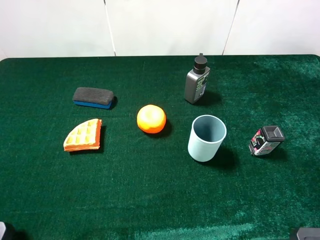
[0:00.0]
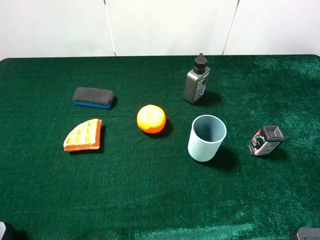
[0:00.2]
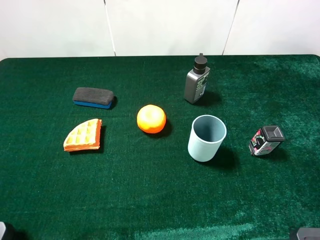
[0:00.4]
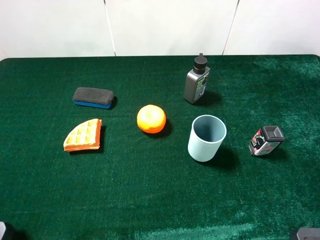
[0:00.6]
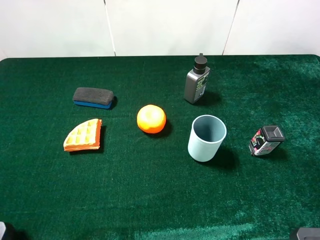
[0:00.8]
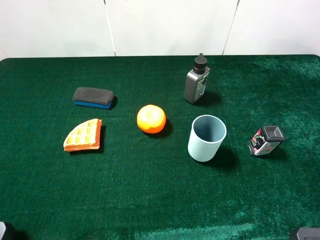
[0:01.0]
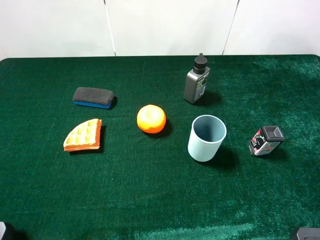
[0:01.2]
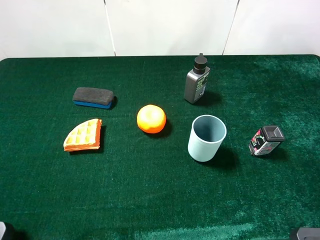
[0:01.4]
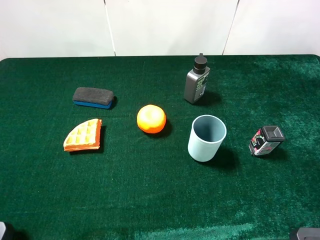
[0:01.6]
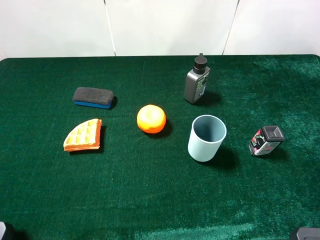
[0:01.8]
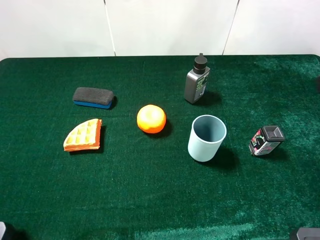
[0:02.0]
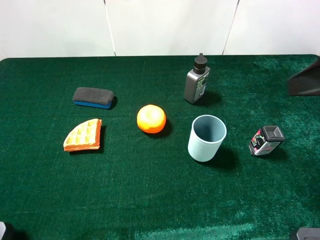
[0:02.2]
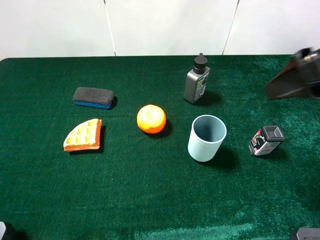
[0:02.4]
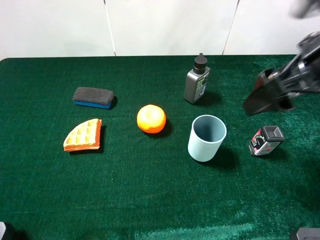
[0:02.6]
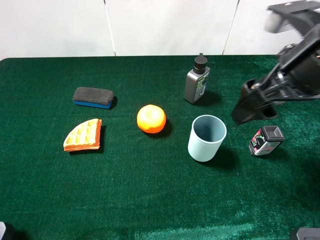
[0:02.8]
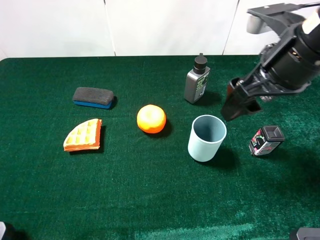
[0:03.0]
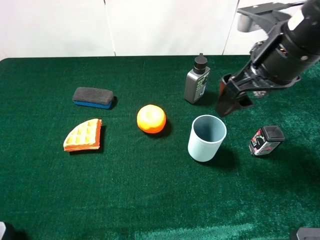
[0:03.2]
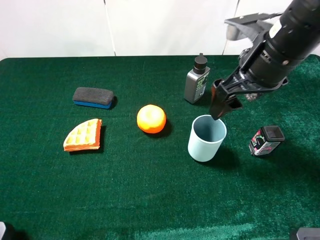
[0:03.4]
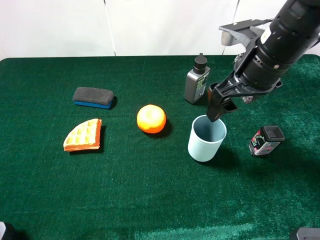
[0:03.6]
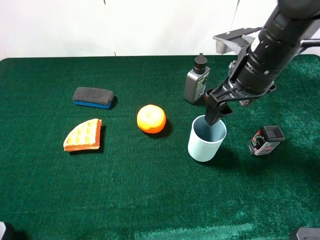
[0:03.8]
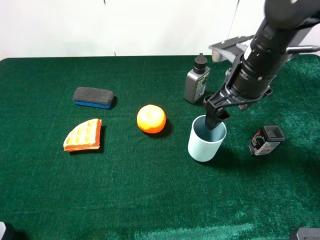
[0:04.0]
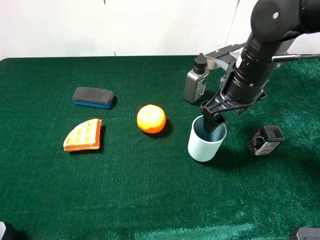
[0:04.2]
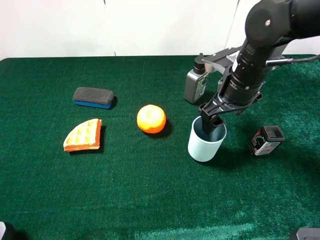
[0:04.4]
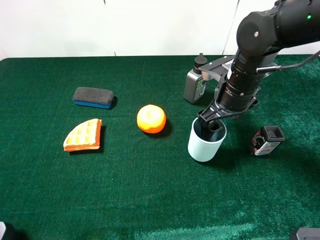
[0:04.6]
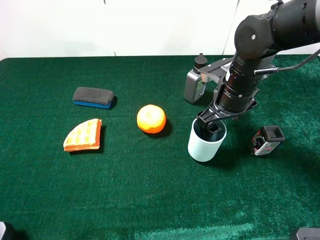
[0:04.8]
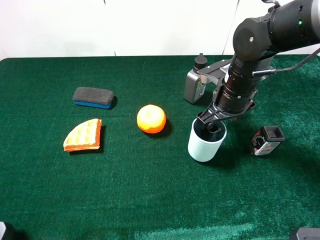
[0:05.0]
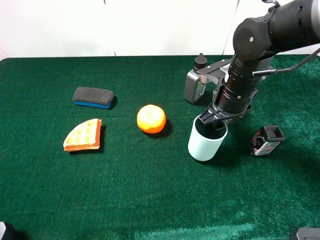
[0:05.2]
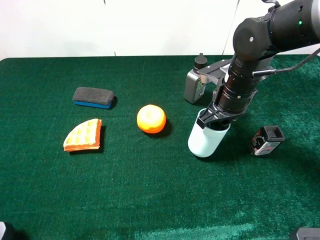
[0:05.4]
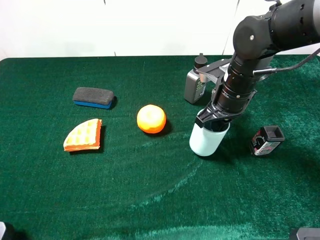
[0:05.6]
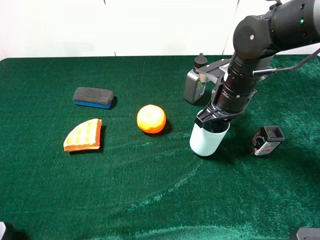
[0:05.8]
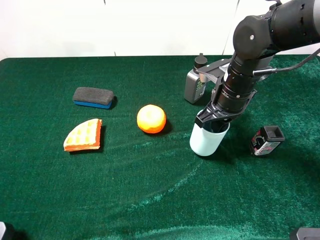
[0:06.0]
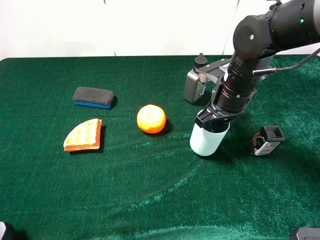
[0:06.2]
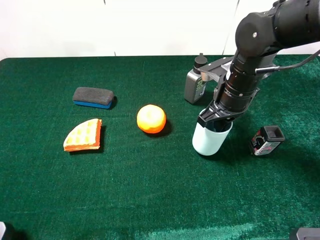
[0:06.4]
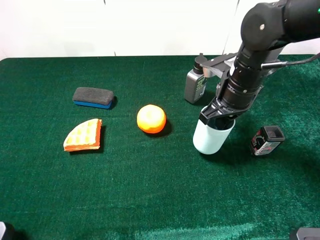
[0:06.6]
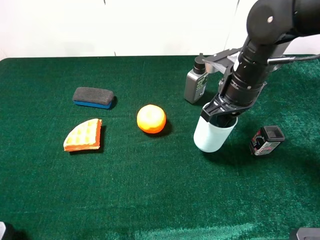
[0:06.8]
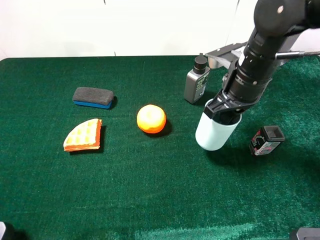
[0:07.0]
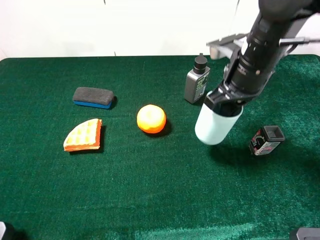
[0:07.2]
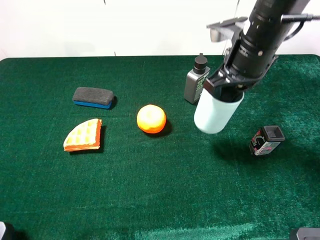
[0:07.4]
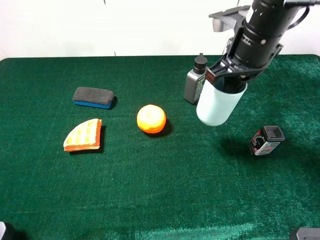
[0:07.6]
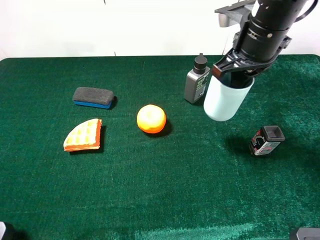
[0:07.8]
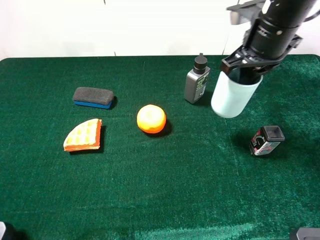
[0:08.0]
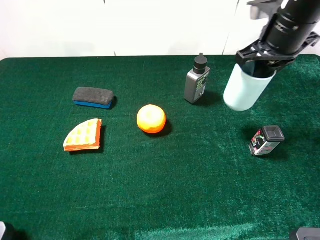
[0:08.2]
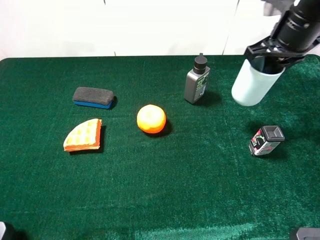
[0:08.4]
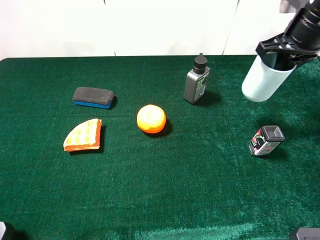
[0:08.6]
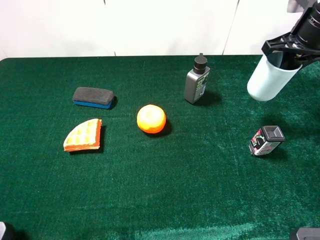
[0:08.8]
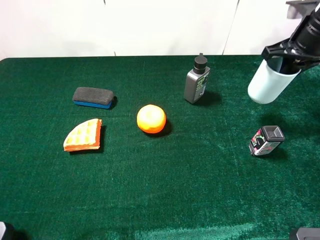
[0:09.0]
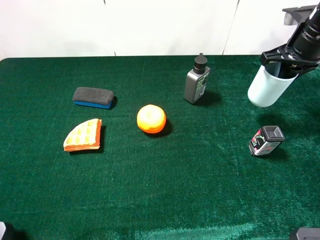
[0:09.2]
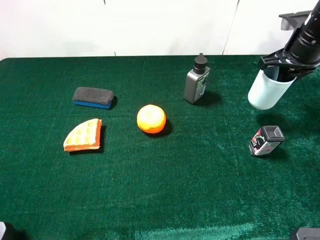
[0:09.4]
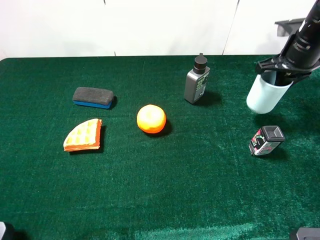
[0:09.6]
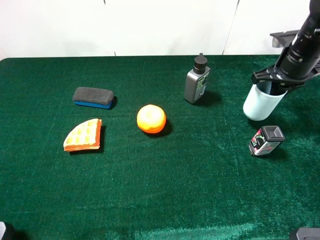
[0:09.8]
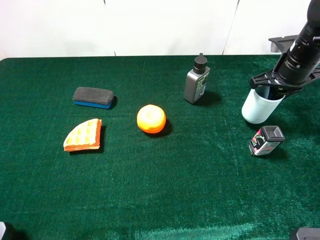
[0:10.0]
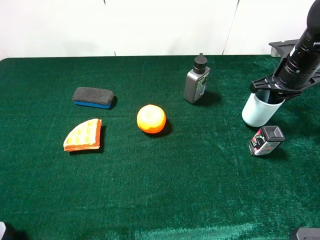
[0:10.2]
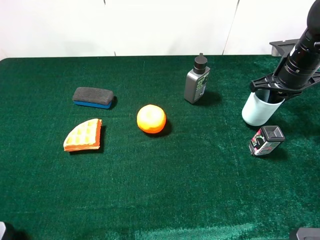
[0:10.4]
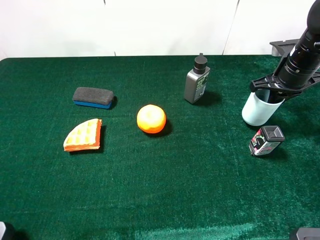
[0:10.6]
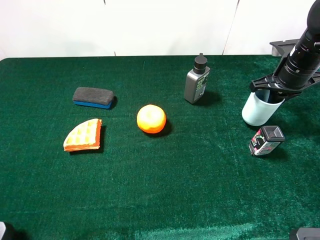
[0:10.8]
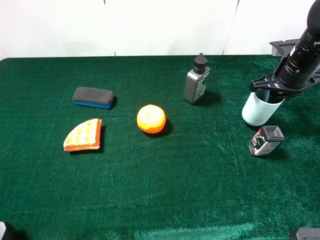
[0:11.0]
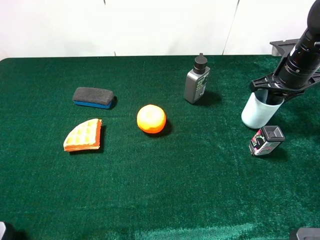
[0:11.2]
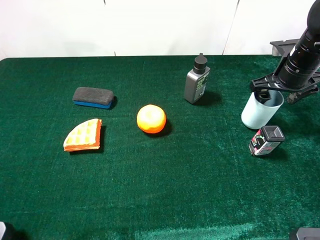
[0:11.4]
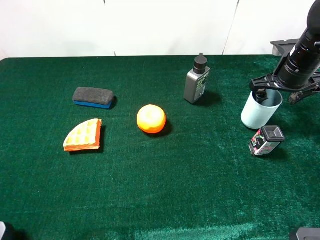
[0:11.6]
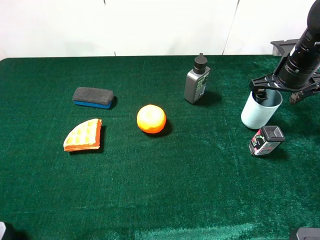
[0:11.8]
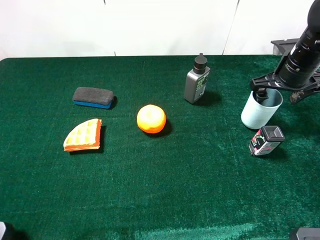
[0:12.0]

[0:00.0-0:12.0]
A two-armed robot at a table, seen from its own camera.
Task of the whole recording: the gripper move the object.
Step, 0:00.0 to 0:05.6: Grasp the cyan cup with the right gripper.
0:01.6 to 0:03.0: The right gripper travels forward, to the left and downward by some 20 cm.
0:03.0 to 0:04.4: The right gripper travels downward and forward by about 10 cm.
0:04.4 to 0:06.0: The right gripper closes its fingers.
0:06.0 to 0:07.6: The right gripper heads upward, covering roughly 10 cm.
0:07.6 to 0:09.0: The right gripper is displaced to the right and forward by approximately 15 cm.
0:09.0 to 0:10.4: The right gripper shifts some 5 cm downward.
0:10.4 to 0:12.0: The right gripper opens.

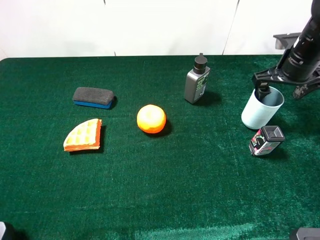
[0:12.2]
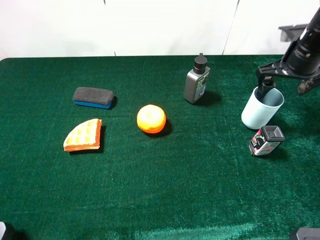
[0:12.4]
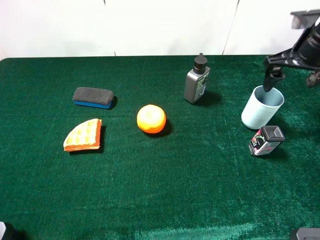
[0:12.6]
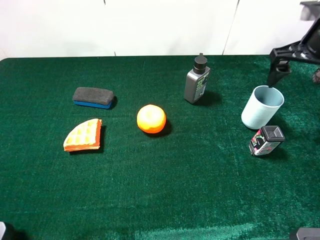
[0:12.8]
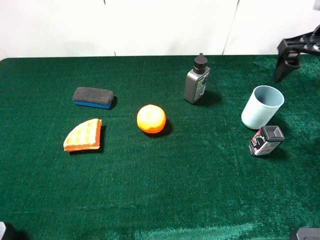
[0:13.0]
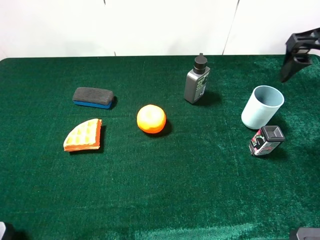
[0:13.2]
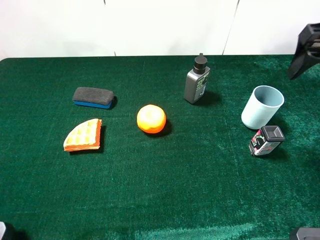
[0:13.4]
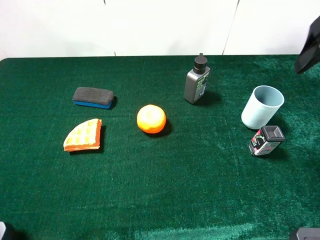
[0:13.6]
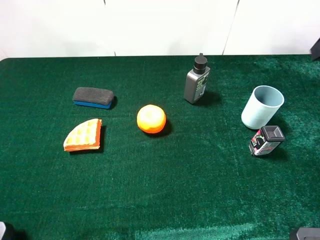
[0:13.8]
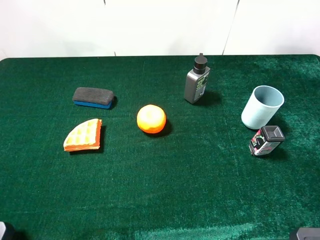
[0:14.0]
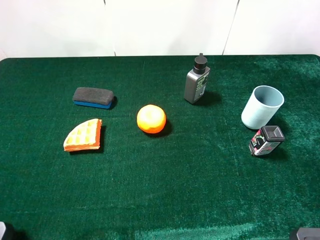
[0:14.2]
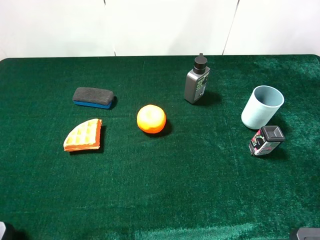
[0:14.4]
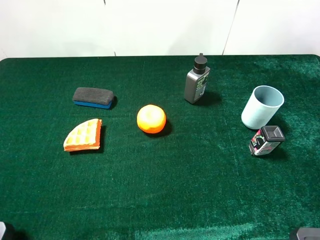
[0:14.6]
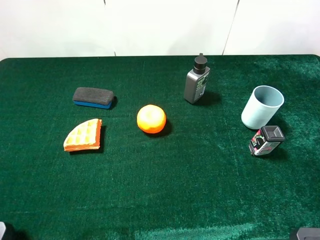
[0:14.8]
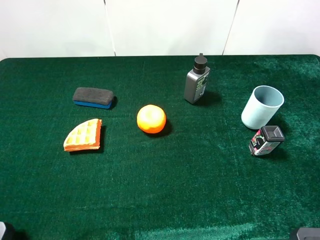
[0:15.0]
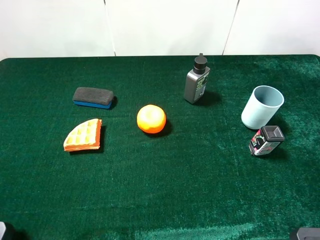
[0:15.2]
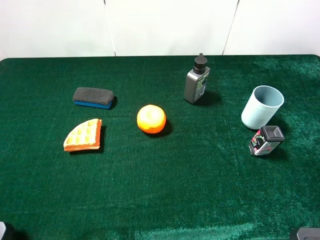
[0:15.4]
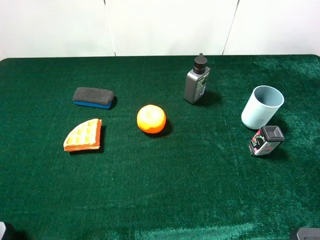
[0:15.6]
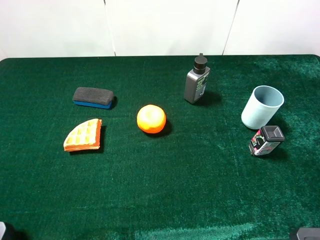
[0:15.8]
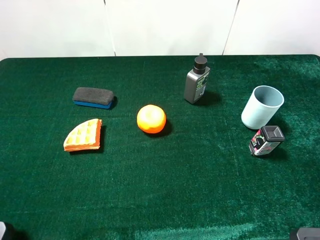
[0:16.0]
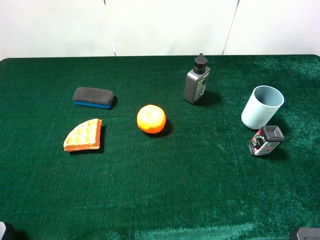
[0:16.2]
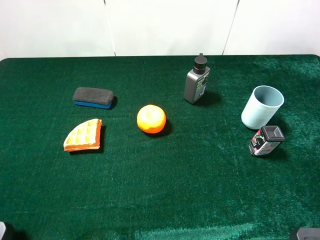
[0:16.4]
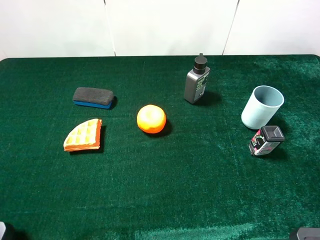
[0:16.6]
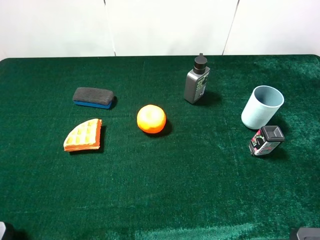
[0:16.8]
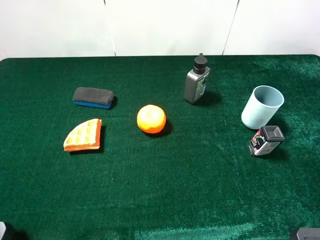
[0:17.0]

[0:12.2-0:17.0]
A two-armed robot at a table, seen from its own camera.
Task of the whole recording: the gripper move the object.
0:12.2 to 0:13.8: The right gripper shifts some 25 cm upward and backward.
0:15.4 to 0:17.0: The two grippers keep their place.

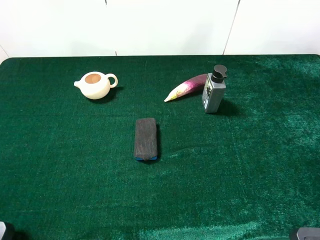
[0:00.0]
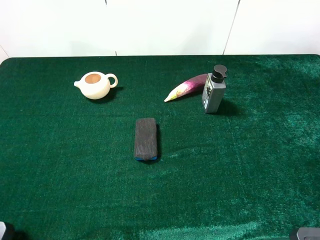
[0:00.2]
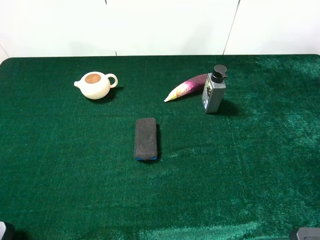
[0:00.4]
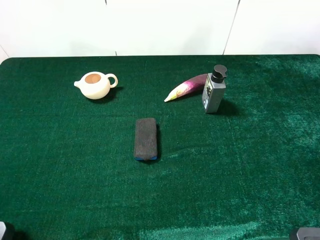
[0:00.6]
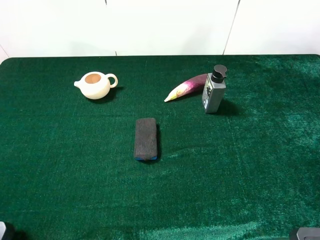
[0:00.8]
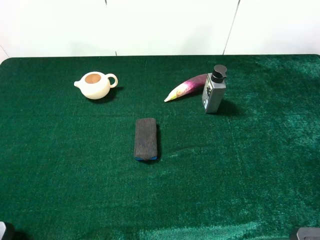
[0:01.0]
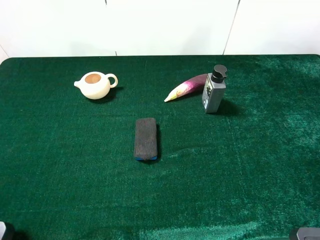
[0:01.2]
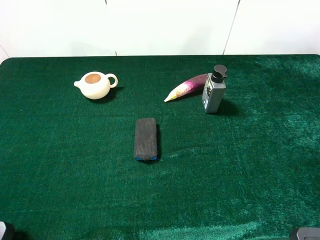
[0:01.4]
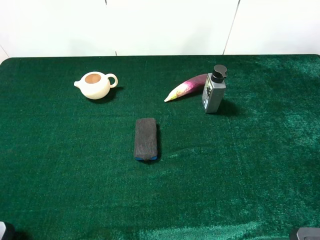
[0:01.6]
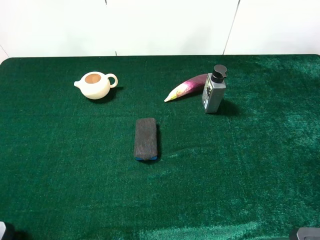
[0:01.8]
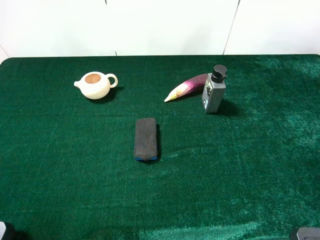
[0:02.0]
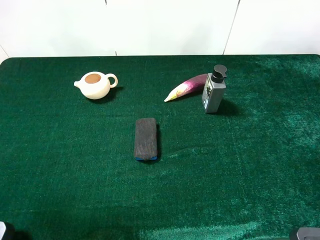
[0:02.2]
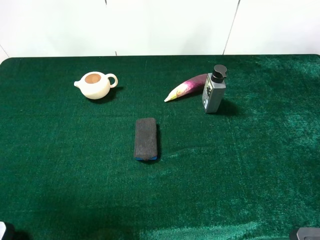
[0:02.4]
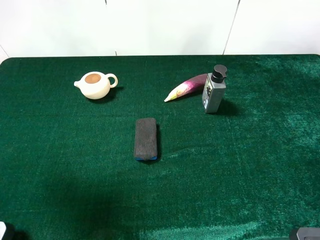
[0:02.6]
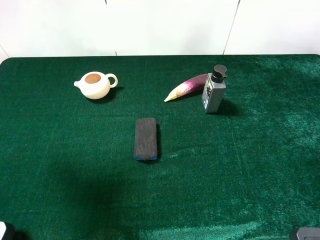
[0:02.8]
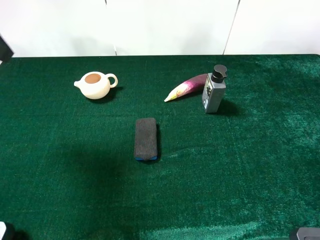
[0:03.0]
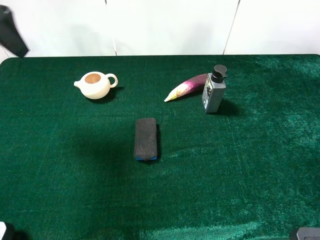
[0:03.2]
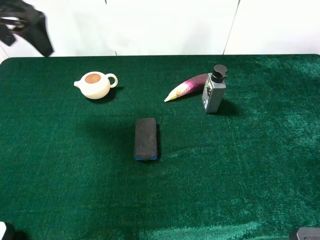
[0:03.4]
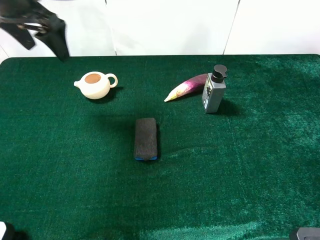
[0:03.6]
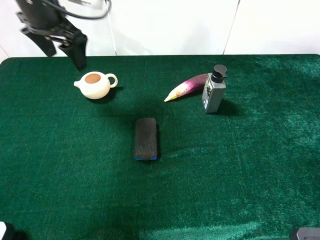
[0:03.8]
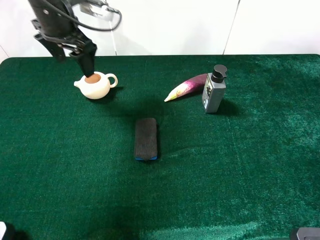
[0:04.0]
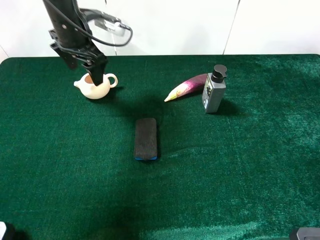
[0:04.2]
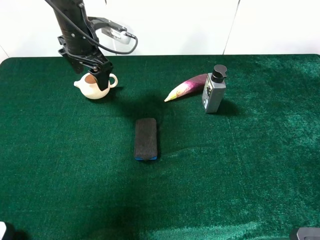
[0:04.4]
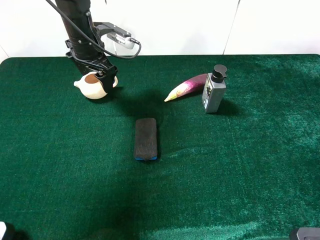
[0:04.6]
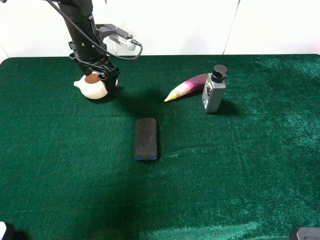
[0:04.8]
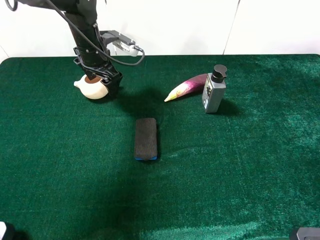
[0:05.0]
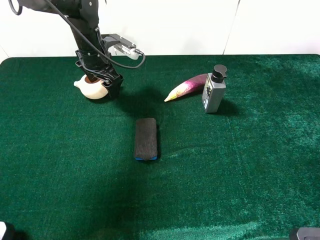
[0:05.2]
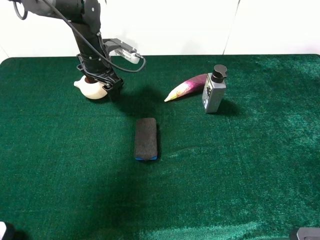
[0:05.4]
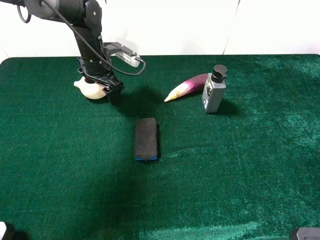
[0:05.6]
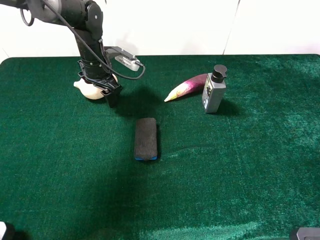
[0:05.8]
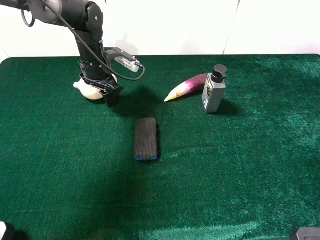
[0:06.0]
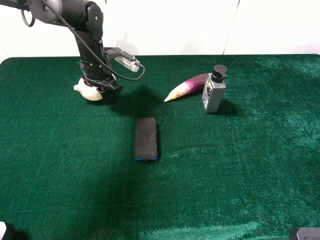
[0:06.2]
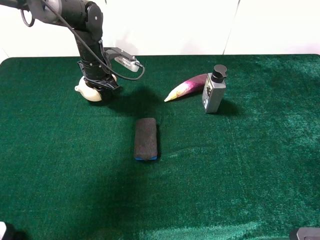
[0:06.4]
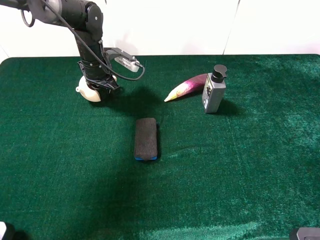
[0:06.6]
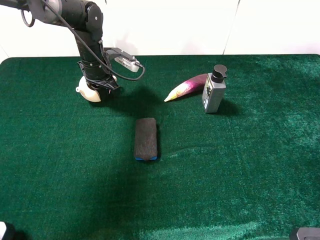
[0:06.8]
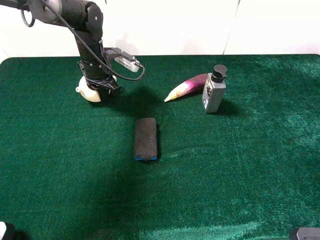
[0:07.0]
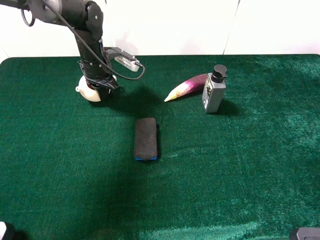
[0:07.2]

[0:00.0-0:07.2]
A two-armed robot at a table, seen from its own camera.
Task of the whole recording: the gripper move the object.
Step, 0:00.0 to 0:06.8: Grasp the blue blackboard earser with the left gripper.
0:00.0 to 0:01.4: The two grippers keep their place.
0:01.4 to 0:02.8: The left gripper is displaced forward by roughly 20 cm.
0:02.8 to 0:04.4: The left gripper shifts about 30 cm forward, downward and to the right.
0:04.4 to 0:05.8: The left gripper heads downward, covering about 10 cm.
0:05.8 to 0:07.2: The left gripper closes up.
